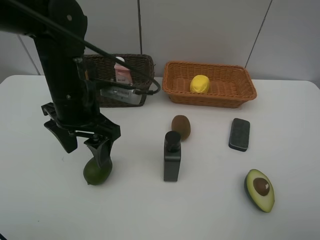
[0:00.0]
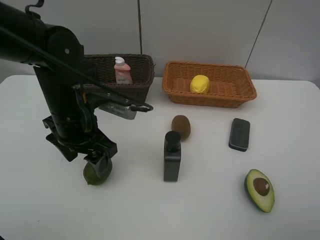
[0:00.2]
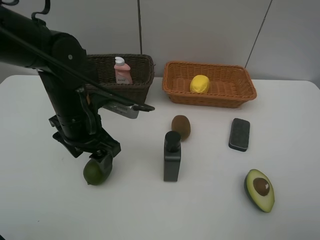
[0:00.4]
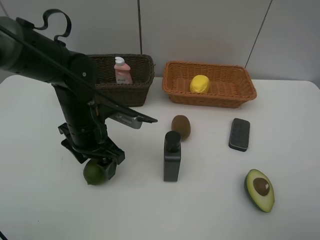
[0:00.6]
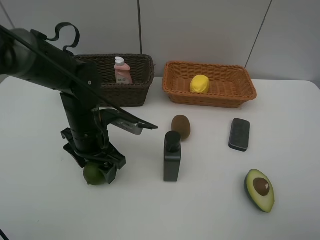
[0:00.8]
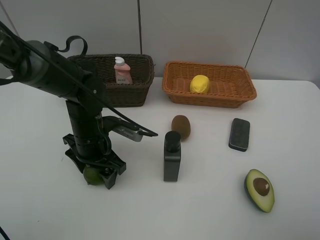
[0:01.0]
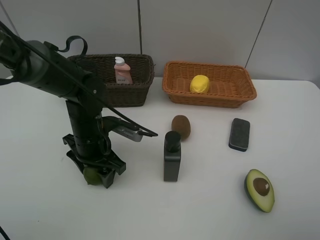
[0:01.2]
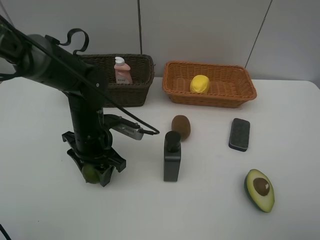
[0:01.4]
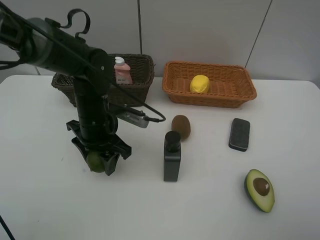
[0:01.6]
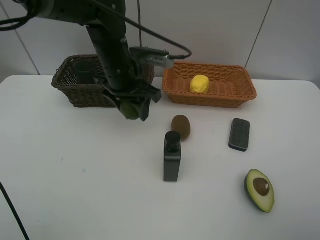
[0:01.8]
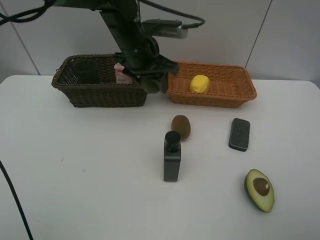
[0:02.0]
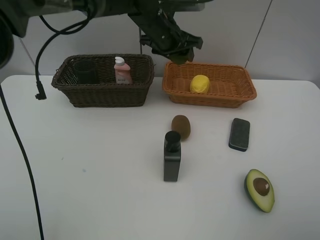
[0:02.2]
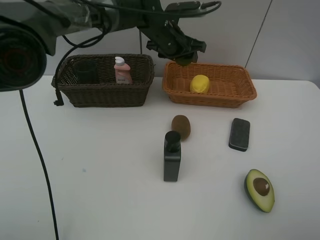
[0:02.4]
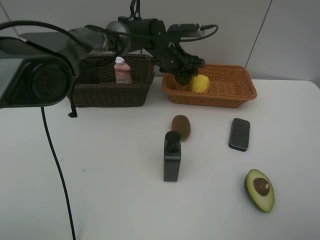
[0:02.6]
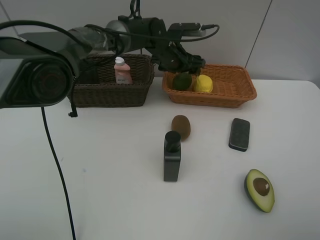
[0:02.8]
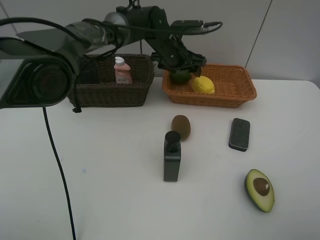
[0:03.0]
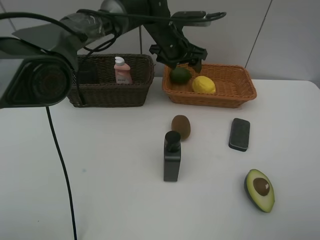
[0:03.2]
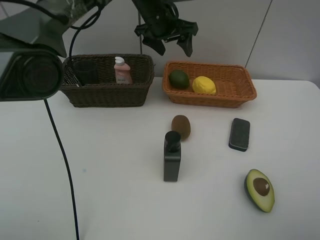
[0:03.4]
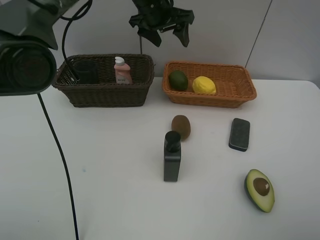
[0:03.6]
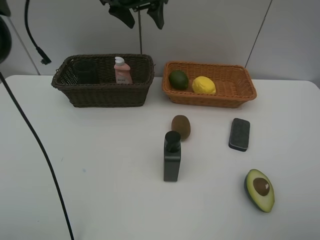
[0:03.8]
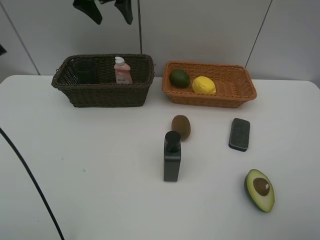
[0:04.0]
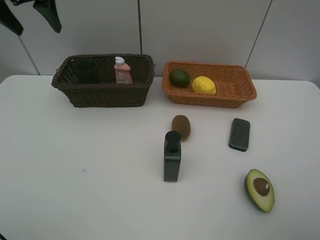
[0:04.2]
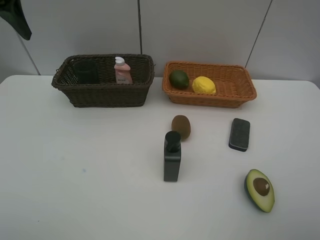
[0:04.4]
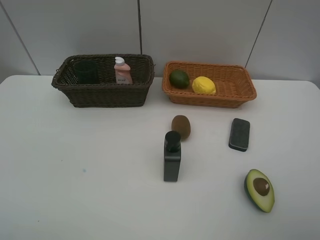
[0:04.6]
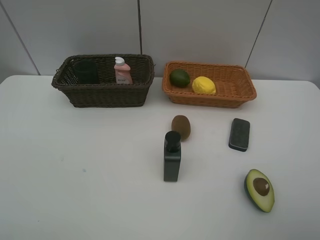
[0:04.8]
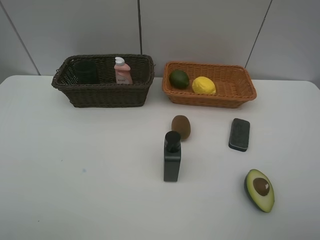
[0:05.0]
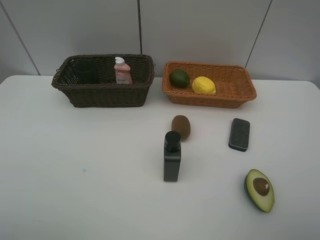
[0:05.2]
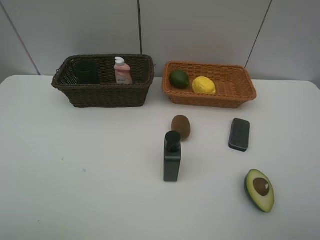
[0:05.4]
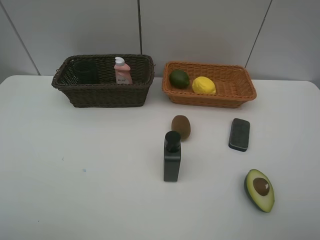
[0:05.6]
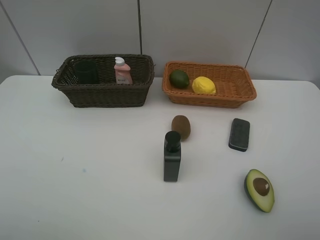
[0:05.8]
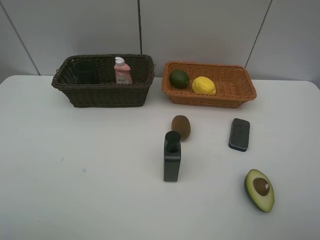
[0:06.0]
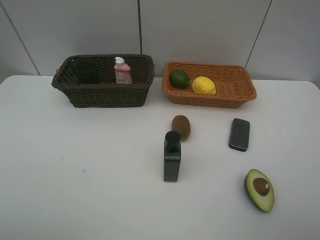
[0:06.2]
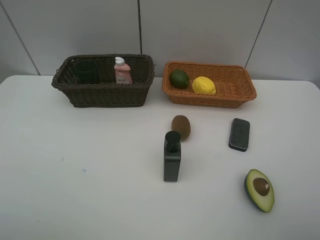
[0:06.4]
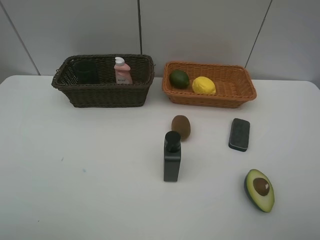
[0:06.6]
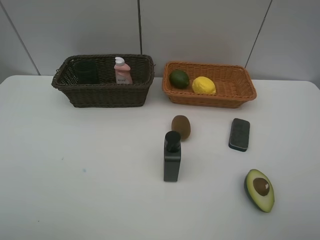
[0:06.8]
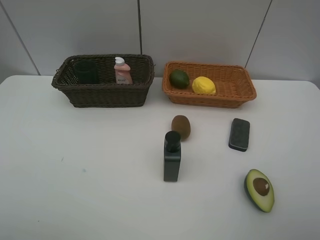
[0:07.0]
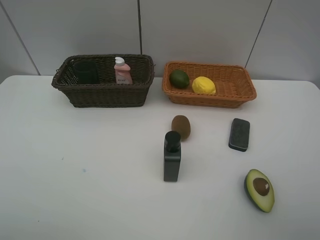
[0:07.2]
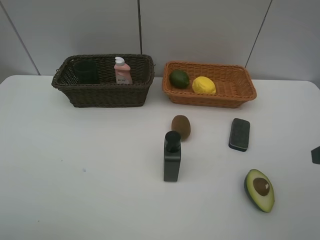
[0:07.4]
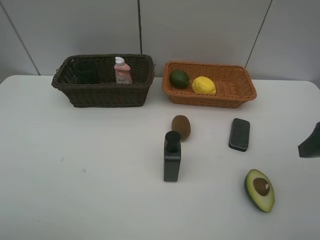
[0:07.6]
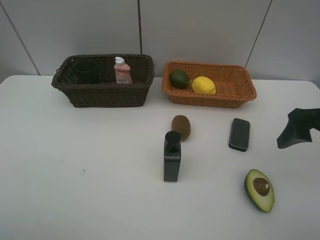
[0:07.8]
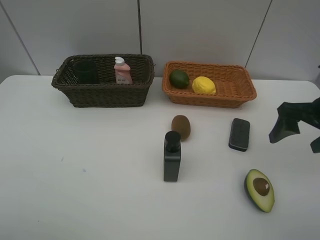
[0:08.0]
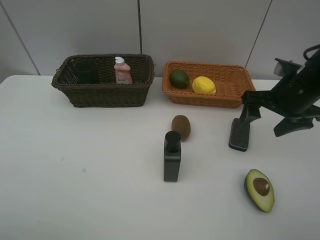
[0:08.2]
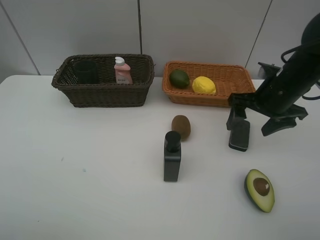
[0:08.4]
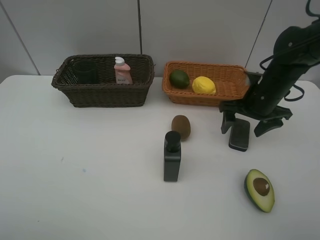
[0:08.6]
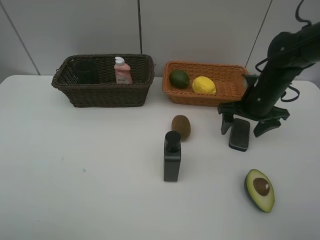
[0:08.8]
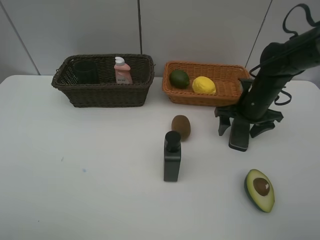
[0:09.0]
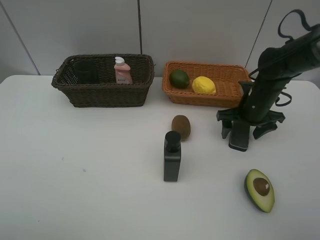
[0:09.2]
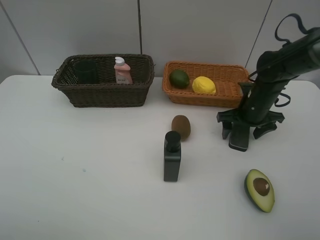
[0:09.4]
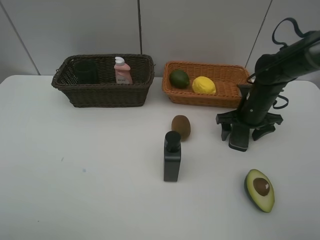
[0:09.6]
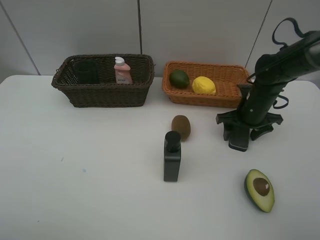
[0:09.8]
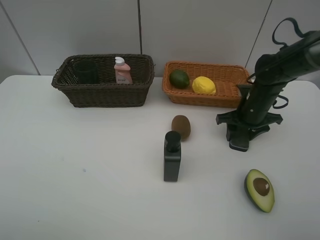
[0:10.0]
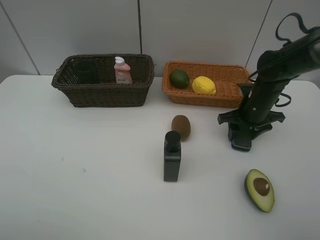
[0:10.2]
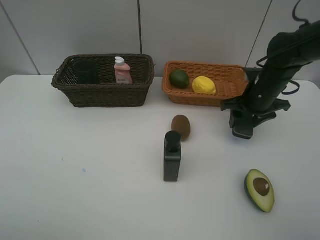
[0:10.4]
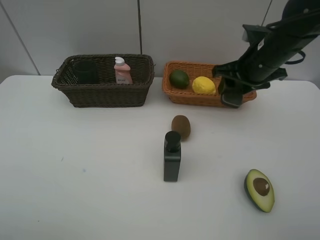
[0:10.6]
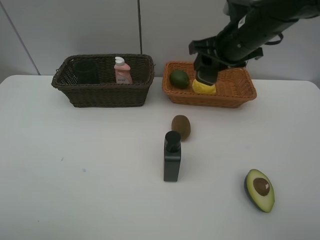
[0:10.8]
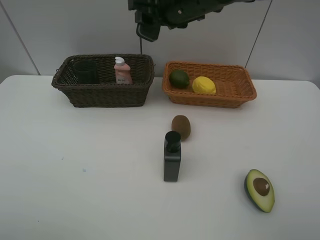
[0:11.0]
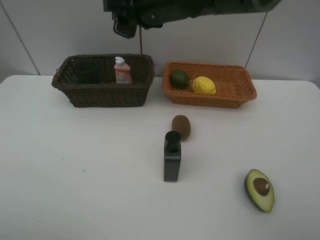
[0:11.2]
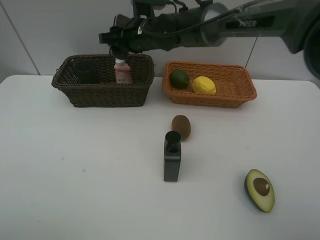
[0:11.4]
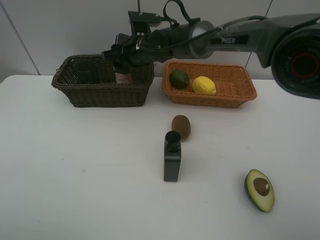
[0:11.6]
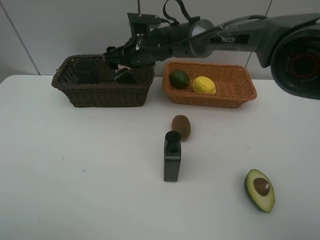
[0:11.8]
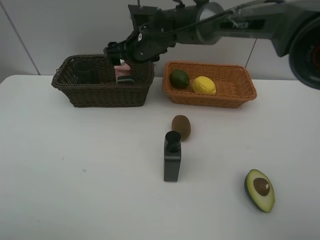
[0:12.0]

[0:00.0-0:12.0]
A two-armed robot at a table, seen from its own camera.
Task of the whole recording: Place multiple objects separately in different baskets.
Step, 1.8 to 2.8 s: Place the lime in the light basket with left gripper.
Step, 3.0 to 10.2 s: Pick up blackboard eraser with right gripper.
Step, 10.4 to 12.0 s: Place the blackboard eraser in the dark basket with right gripper.
0.0 to 1.6 s: The left gripper travels downward by some 5 cm, and closes its fingers.
1.6 to 3.0 s: The left gripper moves forward and to the right, roughly 25 cm, and opens.
3.0 to 4.4 s: The left gripper moves to the left, upward and backward, approximately 40 cm.
4.4 to 6.0 s: The left gripper goes about 30 cm backward.
6.0 to 7.6 s: The right gripper goes about 15 cm forward.
7.6 to 9.0 s: The right gripper shifts approximately 25 cm forward and downward.
9.0 to 10.4 s: The right gripper closes its fingers.
10.4 to 12.0 s: The right gripper shifts approximately 25 cm to the left, and opens its fingers.

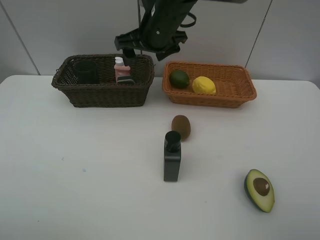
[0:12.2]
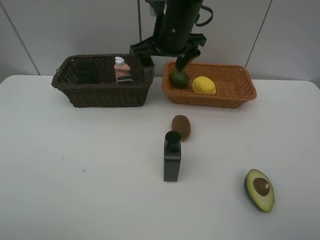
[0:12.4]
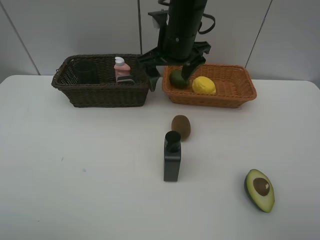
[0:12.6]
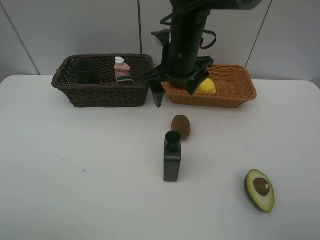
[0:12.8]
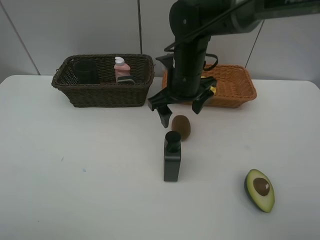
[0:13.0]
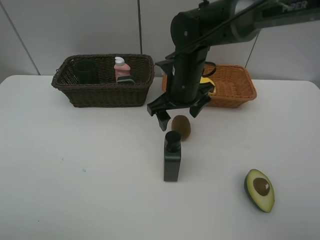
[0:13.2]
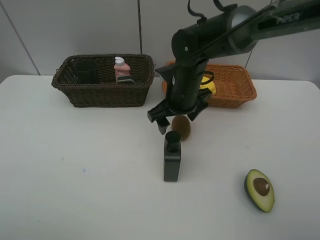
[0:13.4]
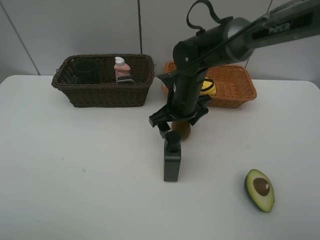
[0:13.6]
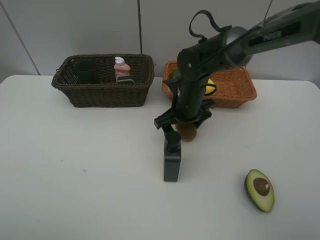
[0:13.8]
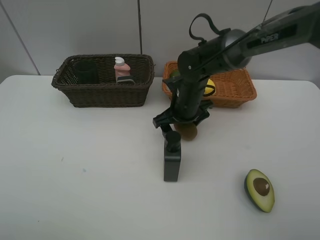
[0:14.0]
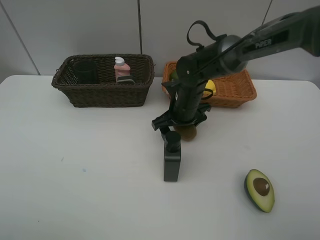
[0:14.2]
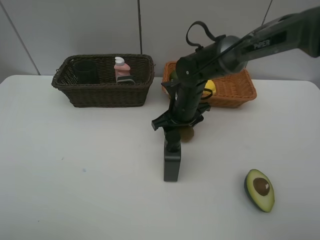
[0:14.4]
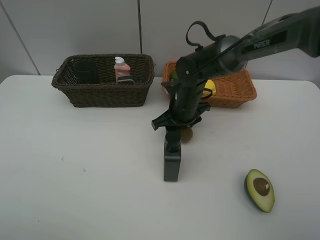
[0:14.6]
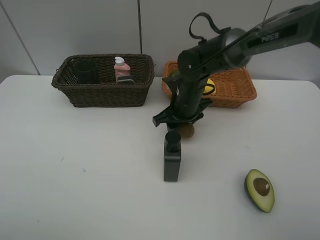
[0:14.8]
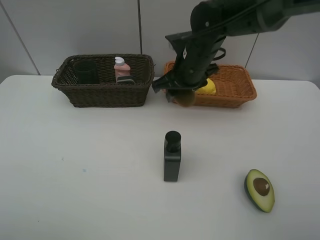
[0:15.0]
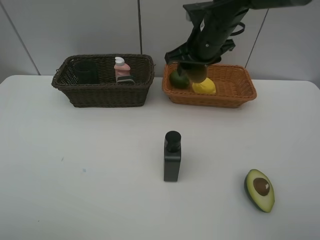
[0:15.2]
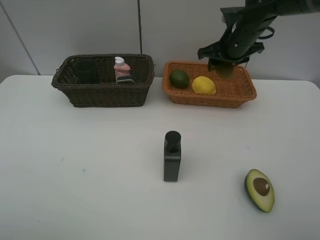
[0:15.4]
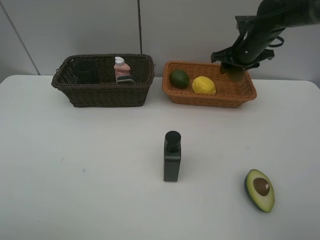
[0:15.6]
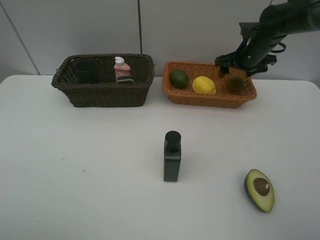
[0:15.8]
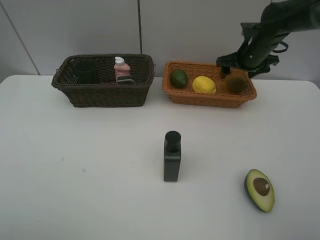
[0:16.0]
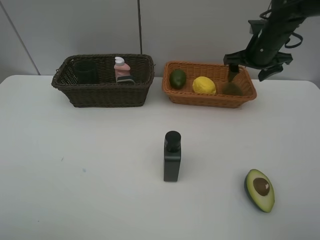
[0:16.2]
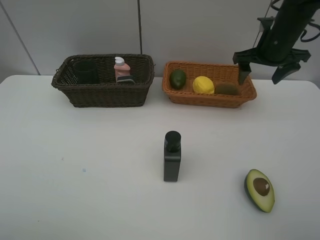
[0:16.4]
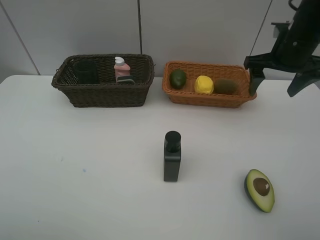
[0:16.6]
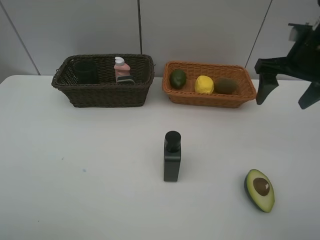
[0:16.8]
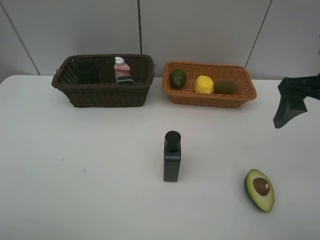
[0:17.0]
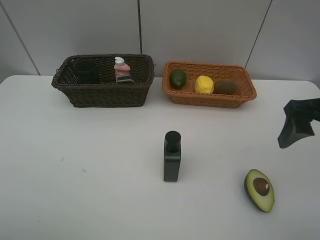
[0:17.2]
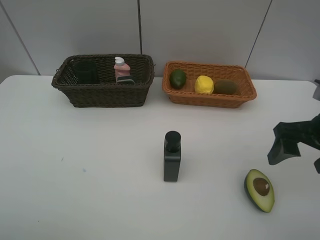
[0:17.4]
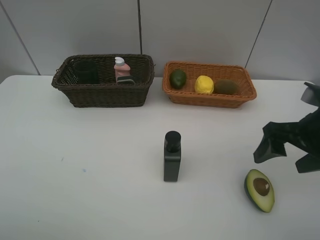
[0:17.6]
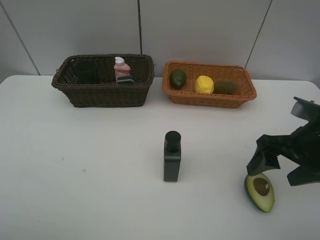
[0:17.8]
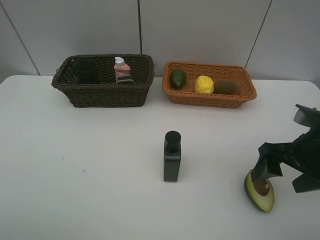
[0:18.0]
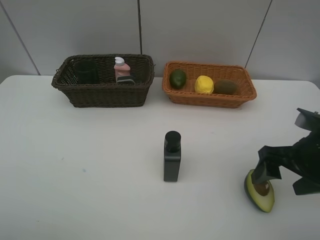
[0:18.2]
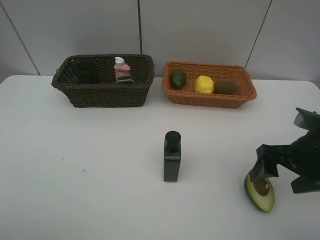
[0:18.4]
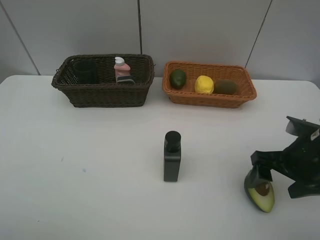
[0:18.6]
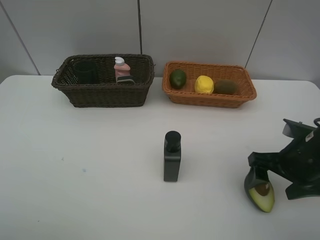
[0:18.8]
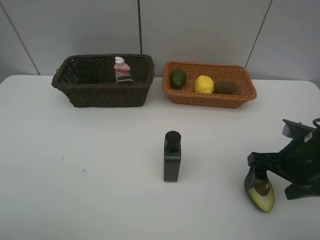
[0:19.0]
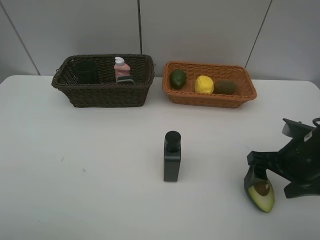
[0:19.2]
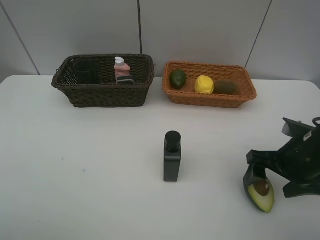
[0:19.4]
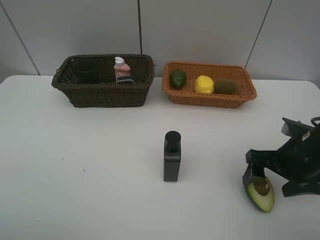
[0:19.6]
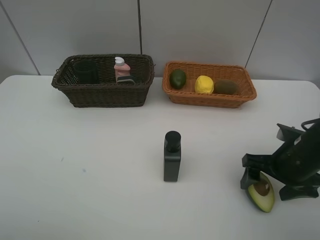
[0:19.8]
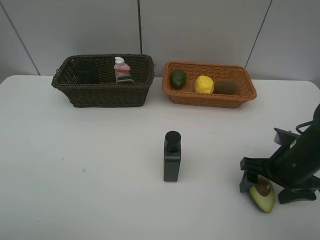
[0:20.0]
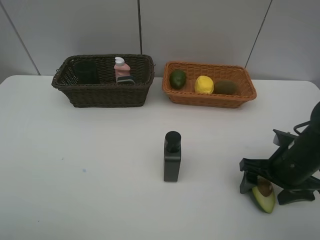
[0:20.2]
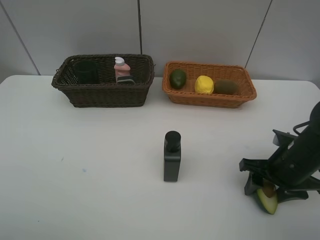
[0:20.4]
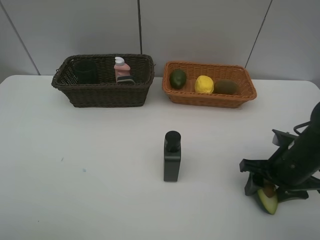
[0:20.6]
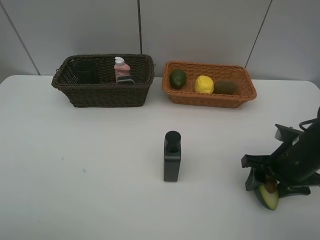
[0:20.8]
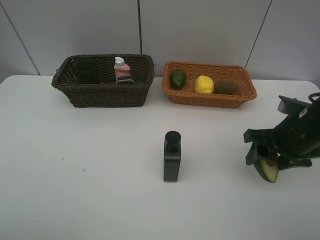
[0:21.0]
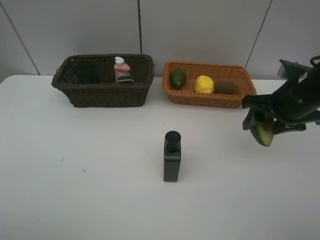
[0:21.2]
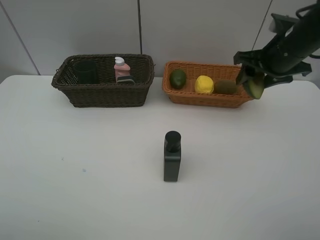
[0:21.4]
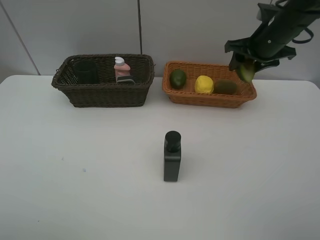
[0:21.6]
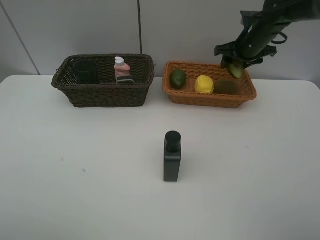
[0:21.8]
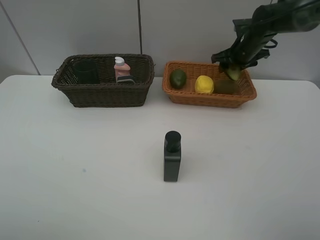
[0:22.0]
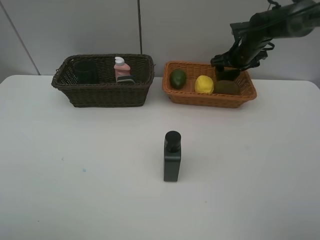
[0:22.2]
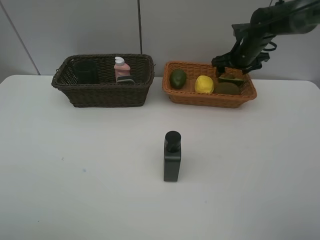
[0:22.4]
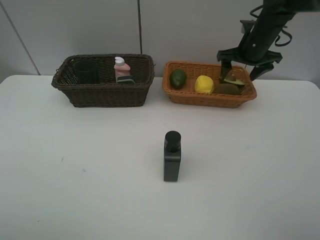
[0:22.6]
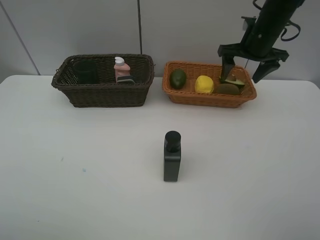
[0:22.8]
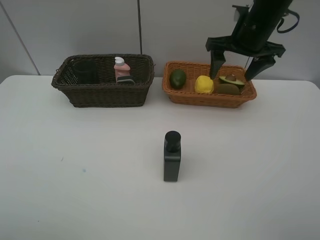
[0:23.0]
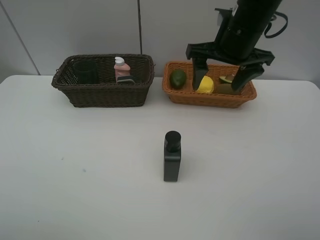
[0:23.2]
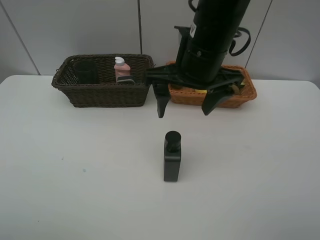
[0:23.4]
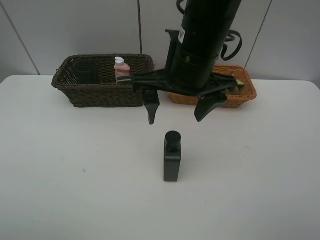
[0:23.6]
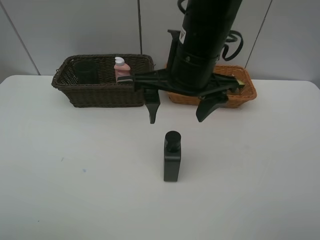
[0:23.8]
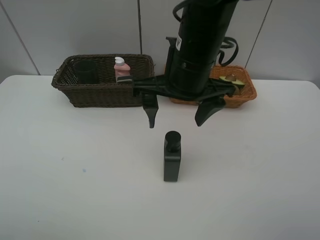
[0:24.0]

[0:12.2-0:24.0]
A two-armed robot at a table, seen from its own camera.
Task of the whole recording: Place multiple objects separately in different baskets.
Step, 12.2 to 14.8 s: Pick up kiwi with right gripper.
Step, 15.0 to 16.0 s: Place the kiwi in the light basket with right gripper.
Step, 16.2 to 20.8 s: Pick up the avocado with right gripper.
Step, 21.0 to 22.4 s: Place the avocado in the light basket with right gripper.
12.2 to 13.6 s: The right gripper is displaced downward and to the right by some 15 cm.
13.6 to 15.2 s: The right gripper heads upward, covering about 10 cm, and closes.
15.2 to 16.6 s: The right gripper is displaced to the right by some 15 cm, and opens up.
16.6 to 18.2 s: The right gripper heads backward and downward, covering approximately 20 cm.
18.2 to 19.6 s: The grippers stay close to where they were, moving slightly.
19.6 to 21.0 s: The right gripper changes place by about 5 cm, and closes its fingers.
21.0 to 22.6 s: The right gripper moves forward, about 20 cm, and opens its fingers.
22.6 to 24.0 s: The right gripper goes roughly 25 cm backward and to the left.
